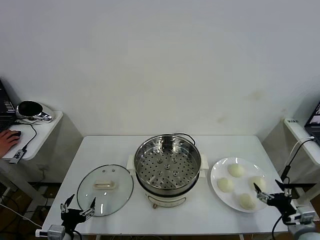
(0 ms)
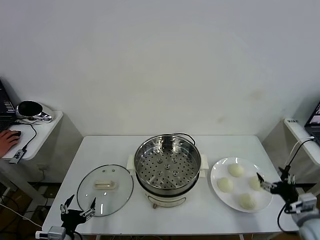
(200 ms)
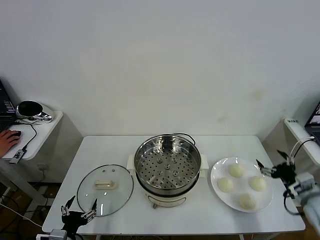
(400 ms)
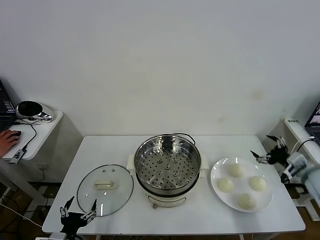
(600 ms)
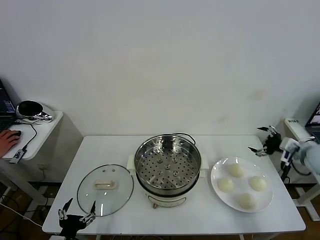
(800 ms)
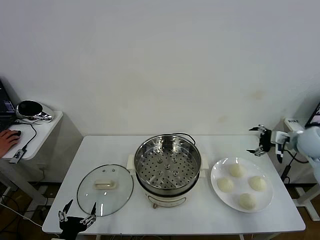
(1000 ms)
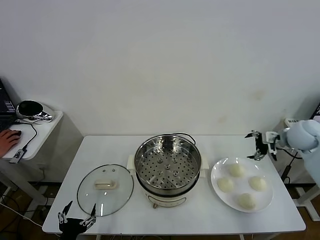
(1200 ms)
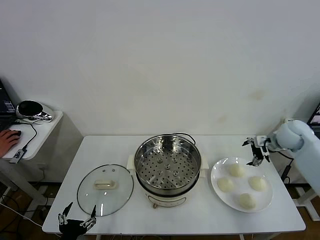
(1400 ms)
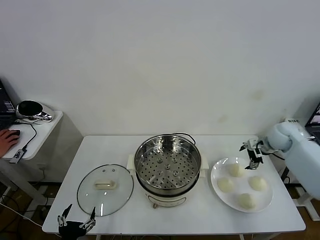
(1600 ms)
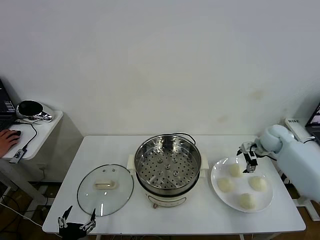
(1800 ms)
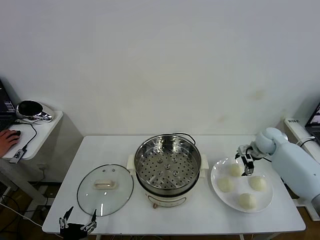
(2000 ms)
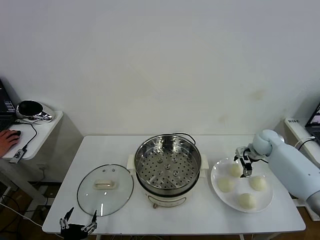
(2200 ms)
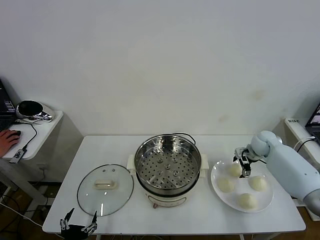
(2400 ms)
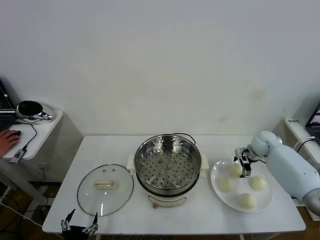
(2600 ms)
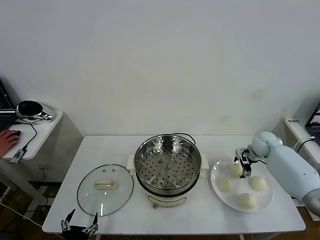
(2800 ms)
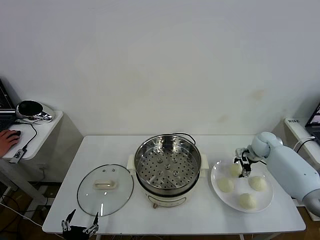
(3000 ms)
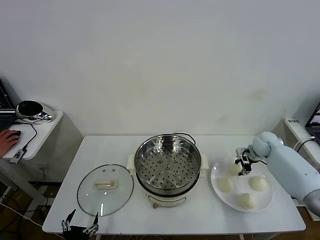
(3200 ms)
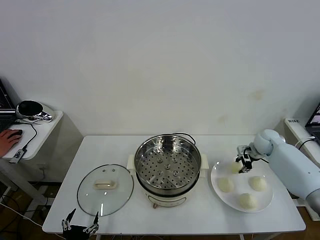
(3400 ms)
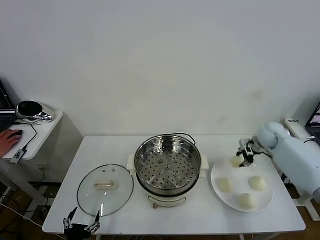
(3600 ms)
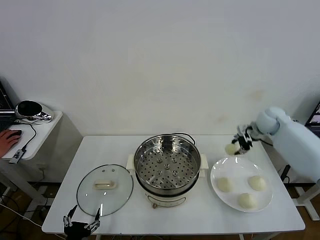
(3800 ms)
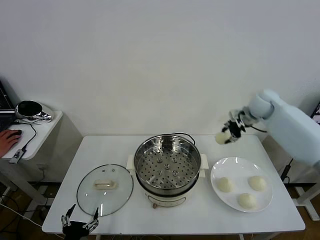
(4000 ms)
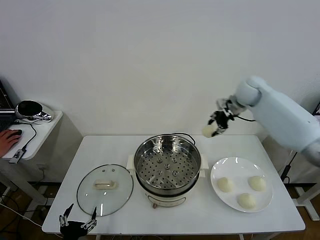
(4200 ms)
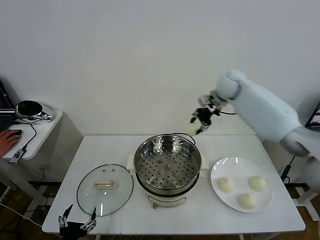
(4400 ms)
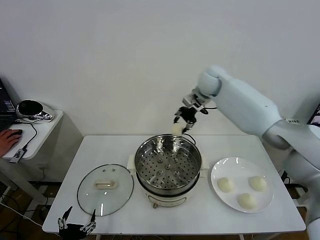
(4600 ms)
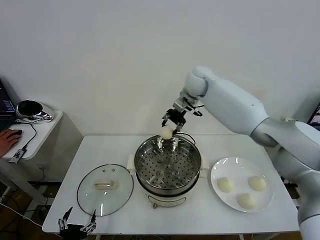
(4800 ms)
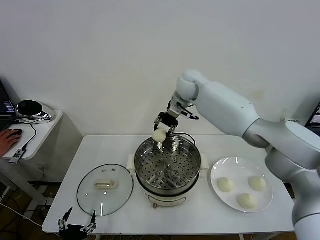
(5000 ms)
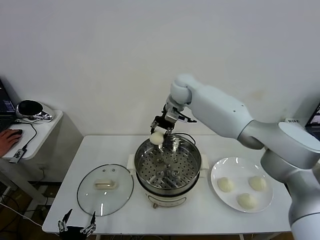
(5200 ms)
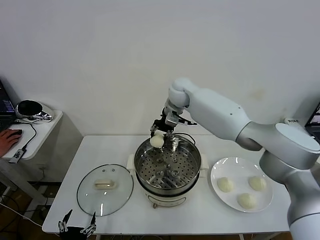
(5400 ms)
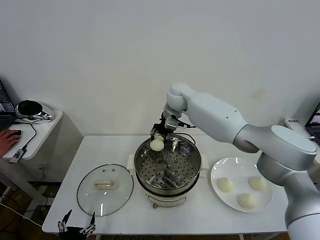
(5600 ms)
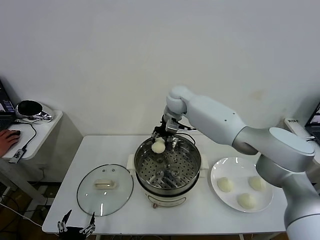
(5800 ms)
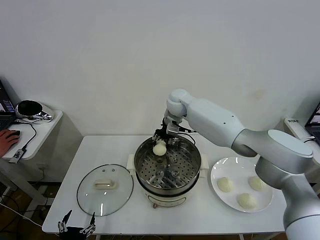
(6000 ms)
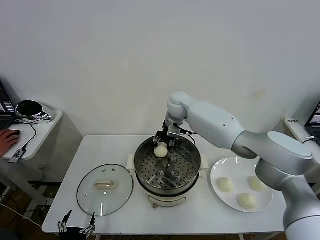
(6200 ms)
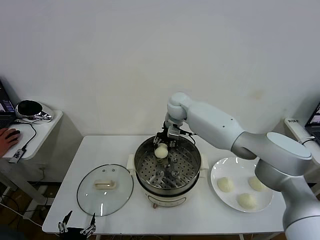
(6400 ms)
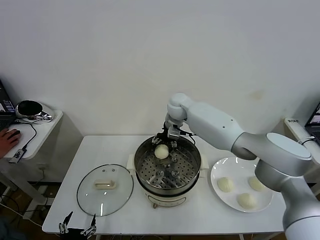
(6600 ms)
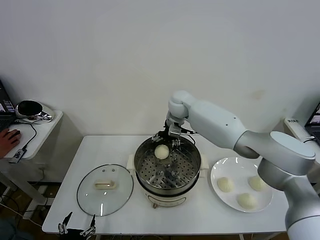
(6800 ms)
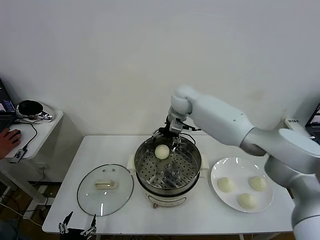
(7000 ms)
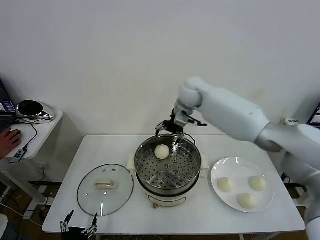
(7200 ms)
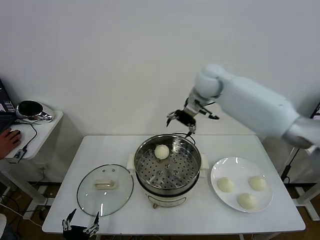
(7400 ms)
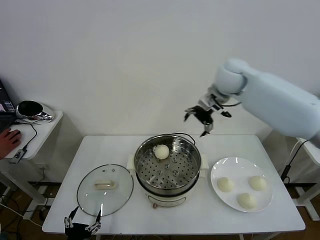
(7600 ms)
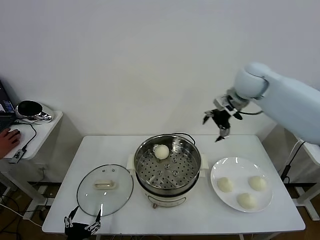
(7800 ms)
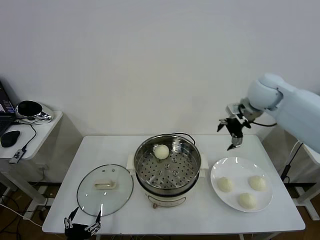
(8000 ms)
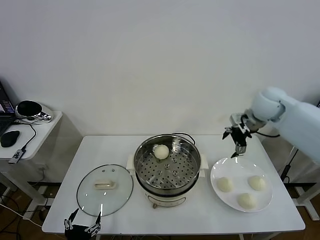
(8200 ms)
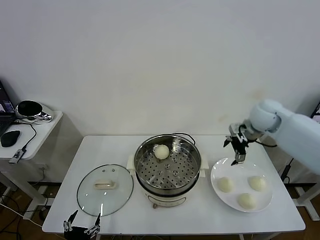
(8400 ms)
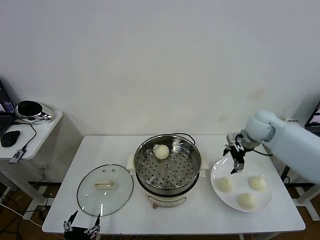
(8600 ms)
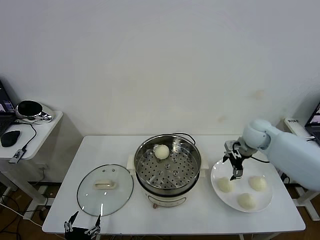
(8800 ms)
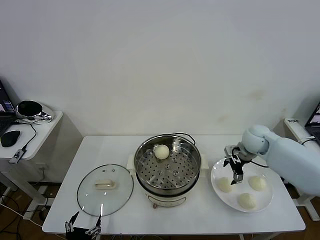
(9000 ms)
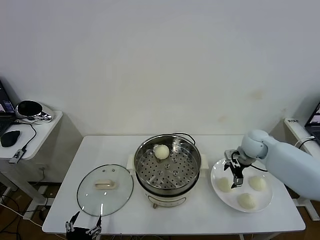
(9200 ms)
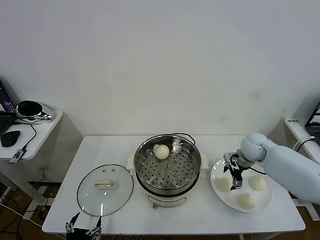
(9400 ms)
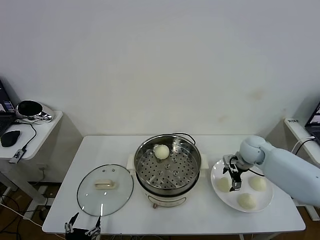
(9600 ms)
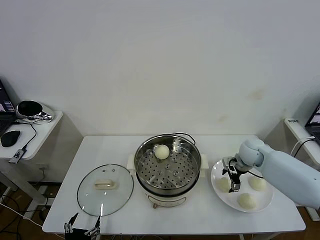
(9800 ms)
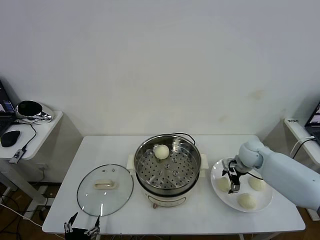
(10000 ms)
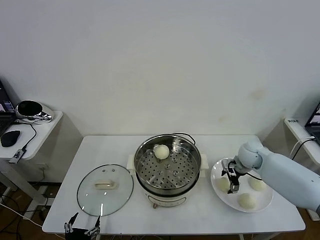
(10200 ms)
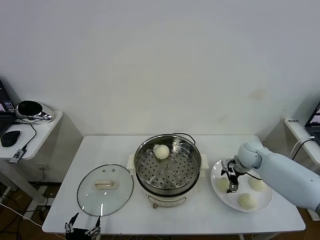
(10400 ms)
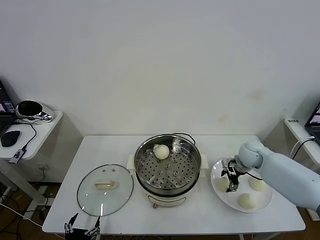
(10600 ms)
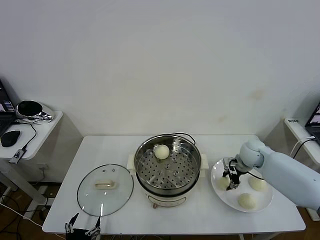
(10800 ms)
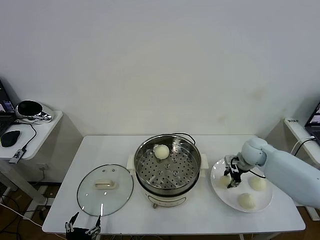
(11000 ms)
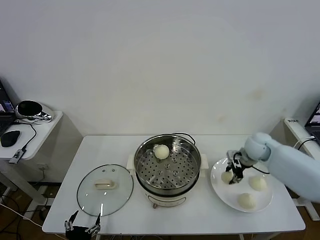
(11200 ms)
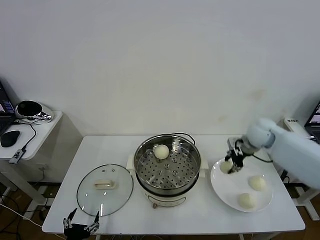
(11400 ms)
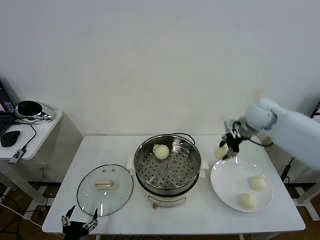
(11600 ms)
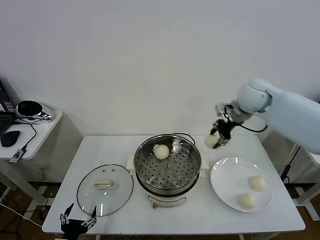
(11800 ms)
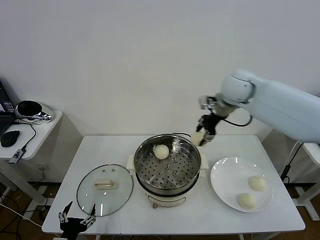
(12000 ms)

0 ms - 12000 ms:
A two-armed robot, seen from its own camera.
Task of the whole recording: take steamed baozi put them in steamer then cover it.
Step, 0 ms - 3000 ms: Grasp the baozi in the plate with right gripper.
Step, 3200 ms - 6800 ms: Place the baozi on the steamer with right gripper.
Step, 7200 ms - 10800 ms: Grasp the baozi in the plate with right gripper.
1600 ms - 3000 ms: The right gripper heads downward, covering some 5 cm, and closes up.
3000 ms - 4400 ms: The right gripper heads upward and to the left, covering about 30 cm.
4400 ms - 6000 ms: The right gripper goes approximately 15 cm to the left and downward.
6000 ms - 7600 ms: The right gripper travels to the right and upward by some 20 cm, and opens up.
7600 ms - 9000 ms: The right gripper travels downward and to the right by some 25 cm.
9000 ms - 10400 ms: The right gripper shifts about 5 cm downward.
10400 ms - 12000 ms: The right gripper shifts approximately 30 cm upward and to the left, and closes up.

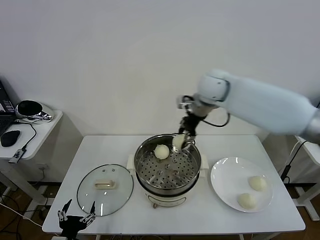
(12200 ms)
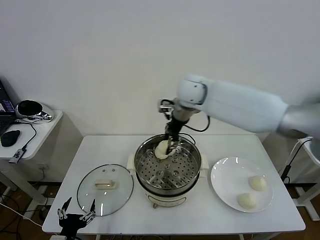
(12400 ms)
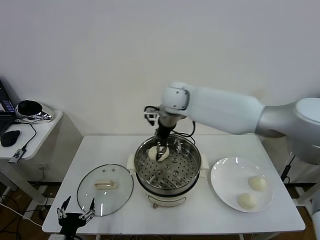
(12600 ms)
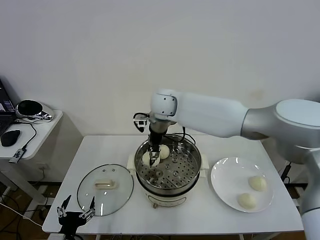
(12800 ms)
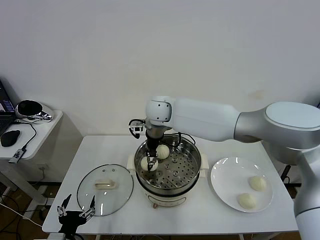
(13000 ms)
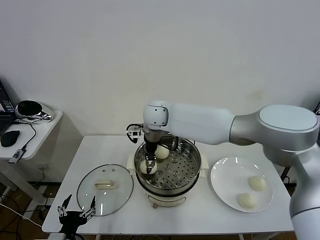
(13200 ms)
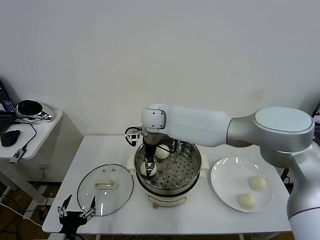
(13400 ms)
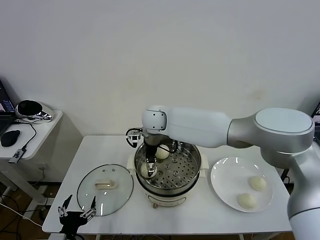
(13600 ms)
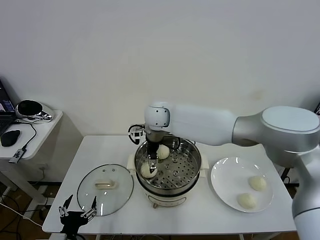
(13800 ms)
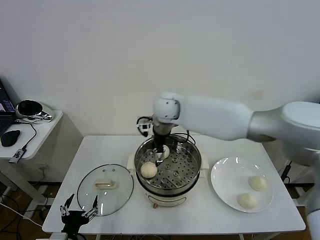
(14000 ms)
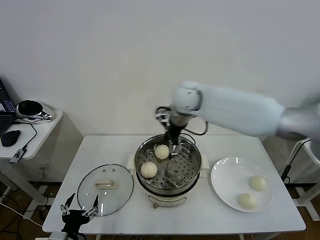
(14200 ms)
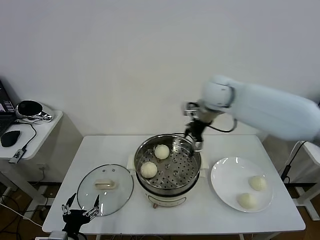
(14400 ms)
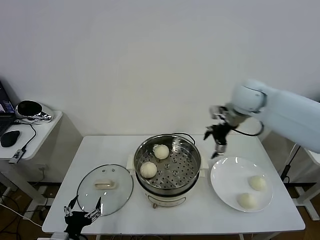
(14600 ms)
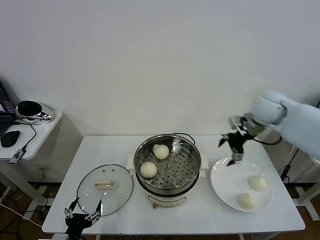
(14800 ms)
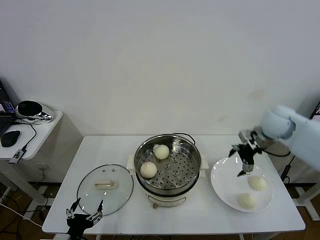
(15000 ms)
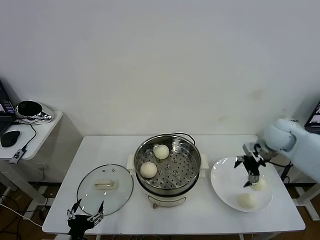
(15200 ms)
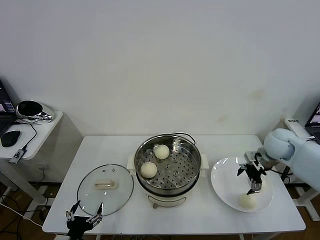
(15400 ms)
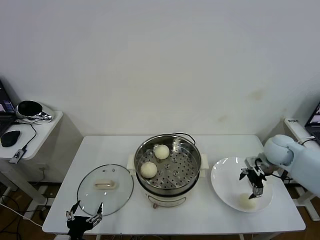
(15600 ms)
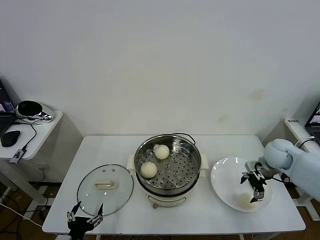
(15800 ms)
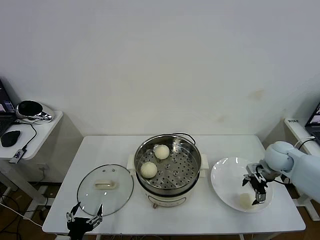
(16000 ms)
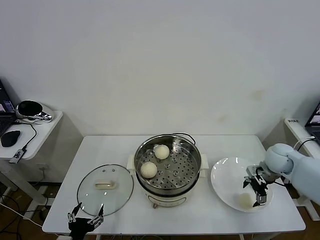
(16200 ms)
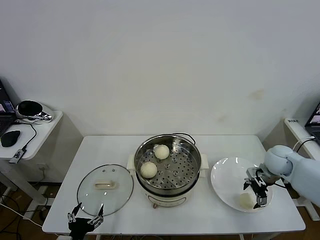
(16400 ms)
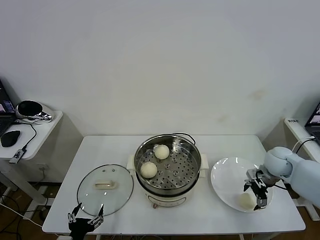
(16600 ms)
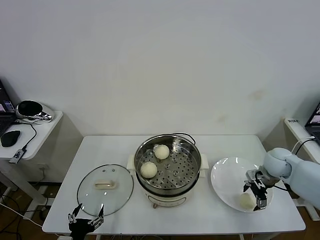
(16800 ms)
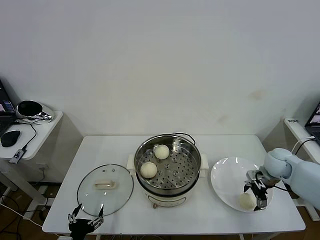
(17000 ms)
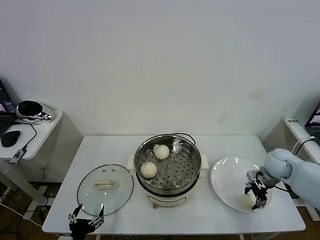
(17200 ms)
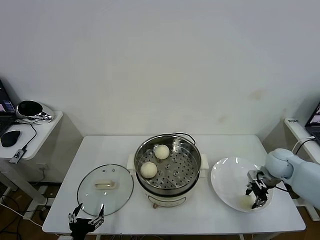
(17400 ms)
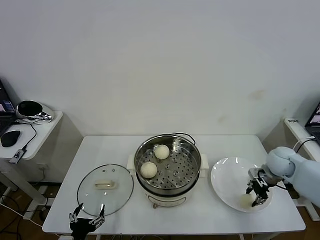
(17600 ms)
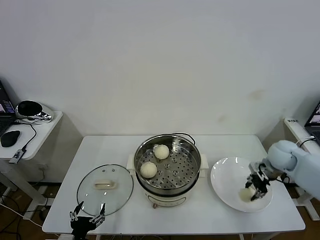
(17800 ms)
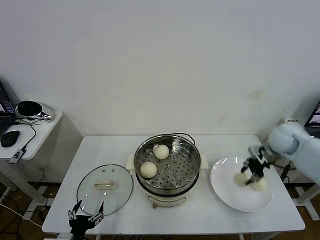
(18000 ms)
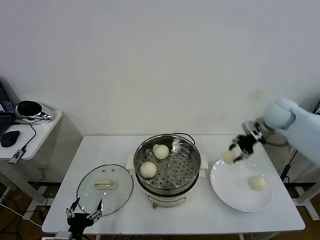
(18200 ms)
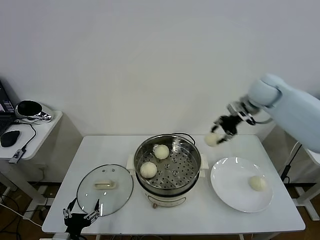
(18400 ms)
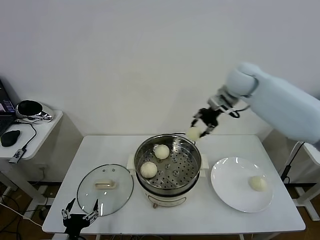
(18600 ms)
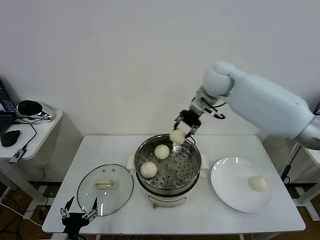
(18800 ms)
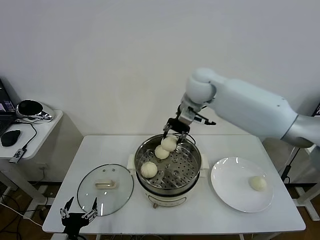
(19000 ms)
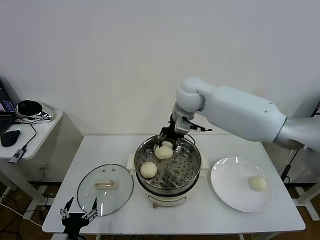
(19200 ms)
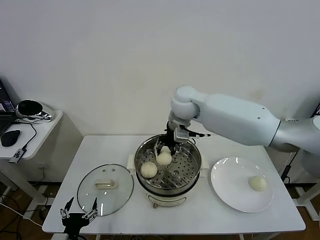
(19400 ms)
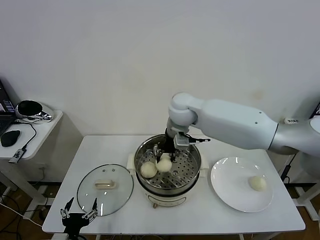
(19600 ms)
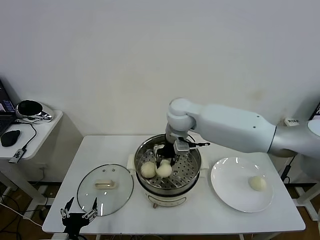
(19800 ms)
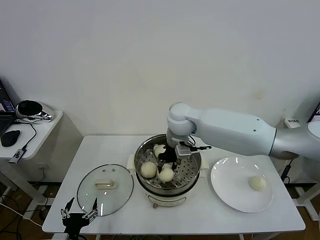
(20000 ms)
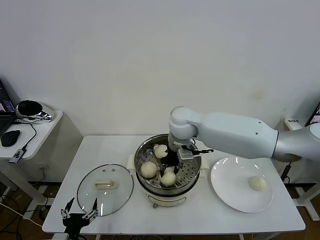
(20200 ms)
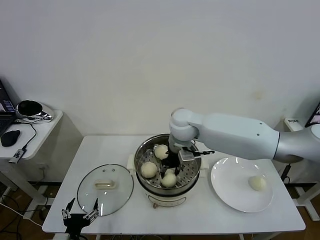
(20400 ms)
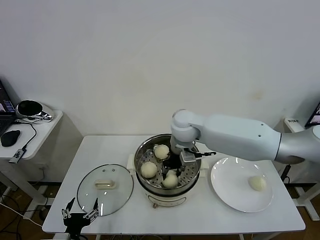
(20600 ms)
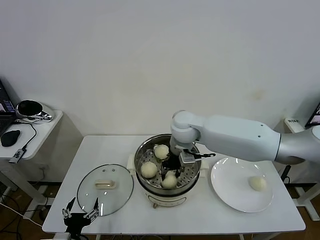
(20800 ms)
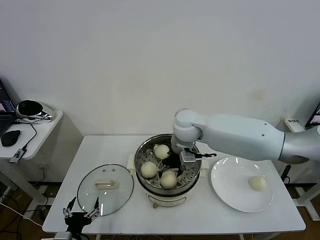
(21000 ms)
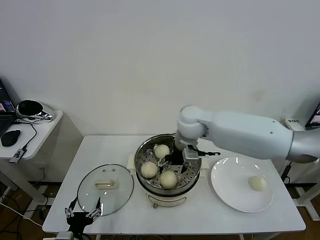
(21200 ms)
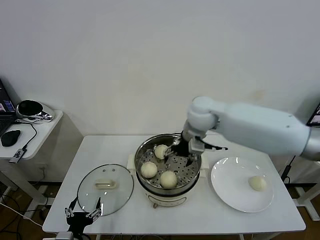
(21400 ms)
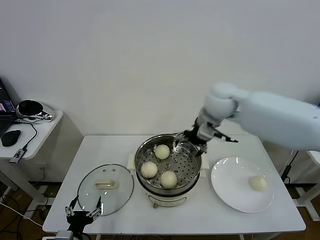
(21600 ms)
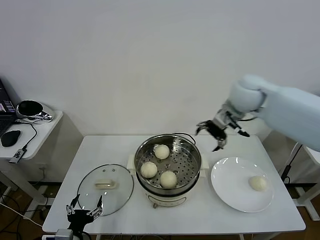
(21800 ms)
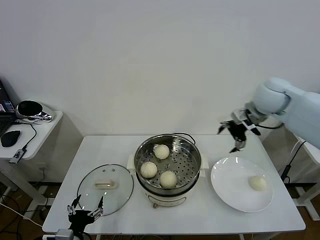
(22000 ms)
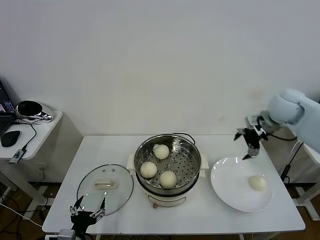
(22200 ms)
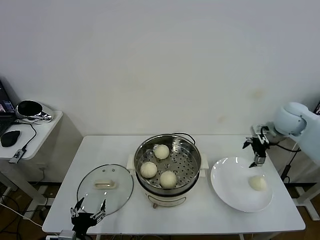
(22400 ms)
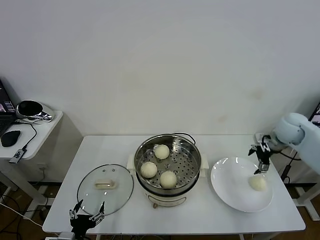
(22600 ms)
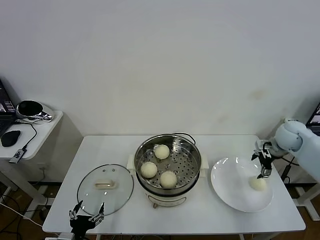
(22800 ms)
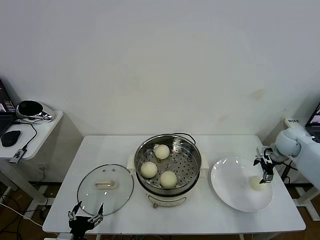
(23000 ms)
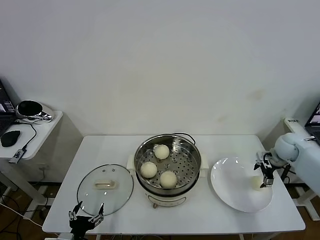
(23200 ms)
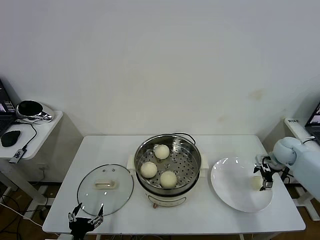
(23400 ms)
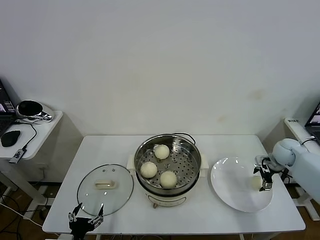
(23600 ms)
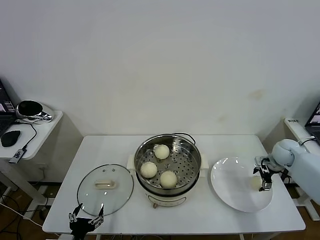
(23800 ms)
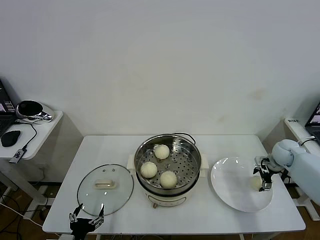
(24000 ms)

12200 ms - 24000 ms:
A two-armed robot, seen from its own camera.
Task of the whole recording: take steamed baozi put them in steamer then cover it.
Step, 12200 ms - 13600 ms: Place the baozi on the steamer with right gripper.
Step, 14000 ms - 17400 ms: Grasp the baozi in the plate with right gripper.
Step, 17600 ms - 21200 ms: Place the baozi on the steamer with right gripper.
12200 ms - 13600 ms: The right gripper shifts about 15 cm to the left and downward, and opens its fingers.
13600 ms - 15200 ms: The right gripper travels to the right by about 40 cm.
15200 ms - 16600 ms: The right gripper heads downward, covering about 10 cm.
16600 ms - 18200 ms: The right gripper goes about 20 cm upward and forward, and closes up.
18200 ms - 19600 ms: The right gripper shifts roughly 30 cm to the left.
19600 ms - 21000 ms: The right gripper opens its fingers.
21000 ms - 22600 ms: The right gripper heads to the right, covering approximately 35 cm.
22600 ms - 24000 ms: The right gripper heads downward, covering approximately 10 cm.
